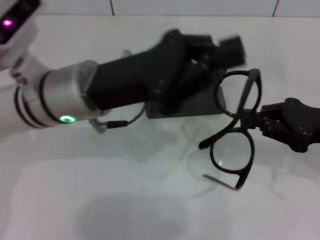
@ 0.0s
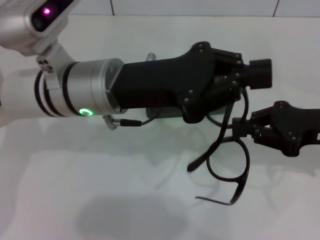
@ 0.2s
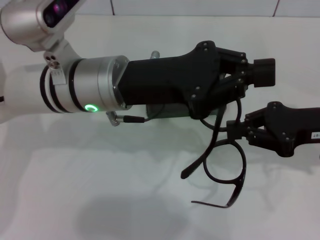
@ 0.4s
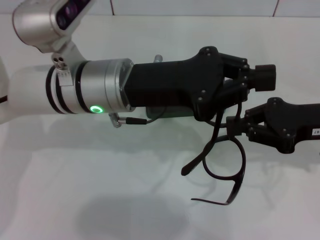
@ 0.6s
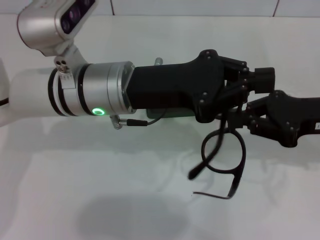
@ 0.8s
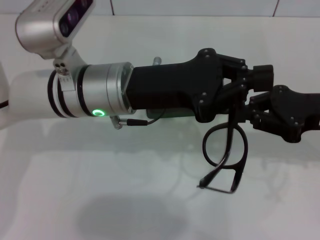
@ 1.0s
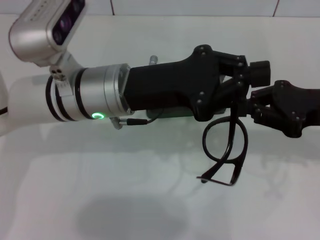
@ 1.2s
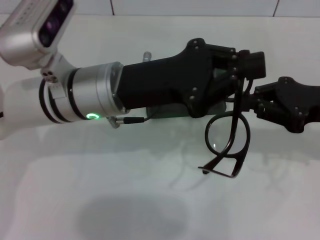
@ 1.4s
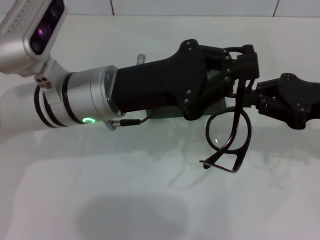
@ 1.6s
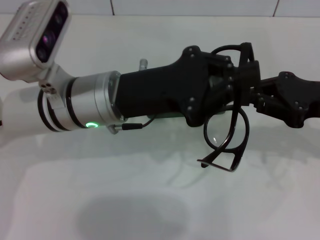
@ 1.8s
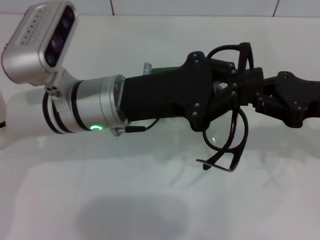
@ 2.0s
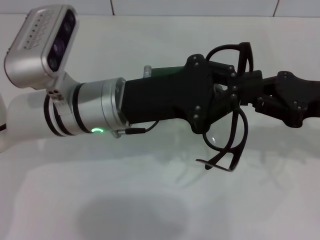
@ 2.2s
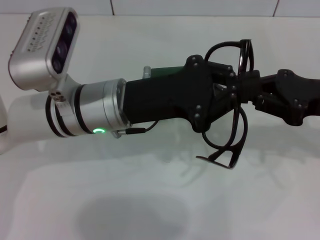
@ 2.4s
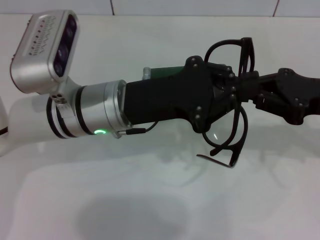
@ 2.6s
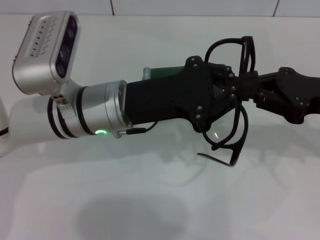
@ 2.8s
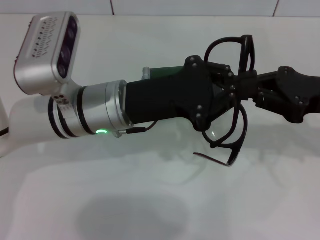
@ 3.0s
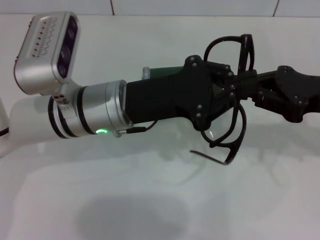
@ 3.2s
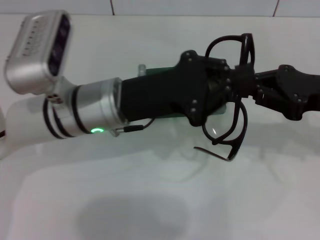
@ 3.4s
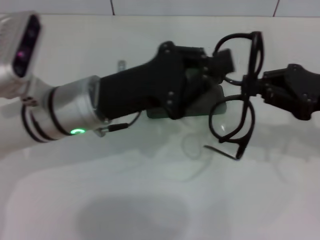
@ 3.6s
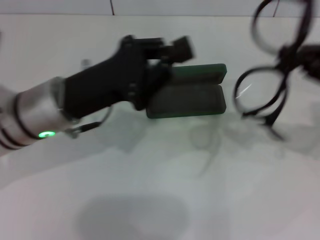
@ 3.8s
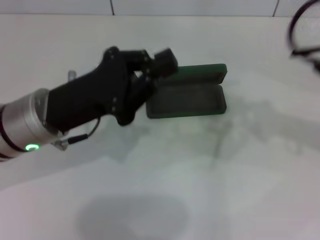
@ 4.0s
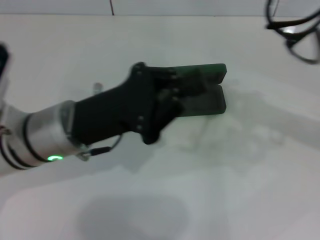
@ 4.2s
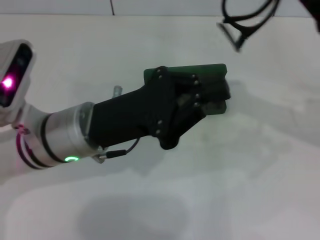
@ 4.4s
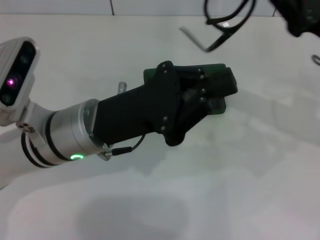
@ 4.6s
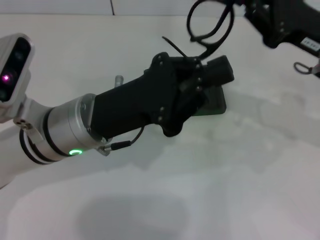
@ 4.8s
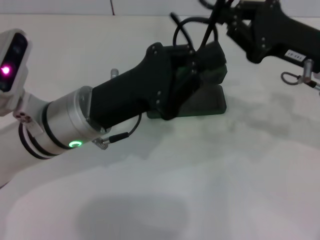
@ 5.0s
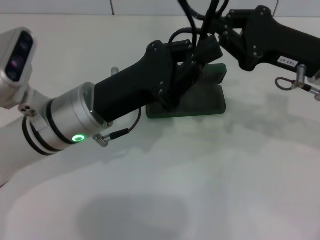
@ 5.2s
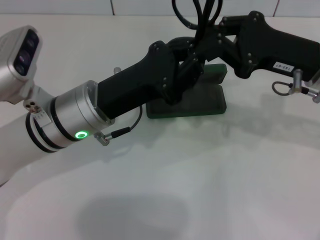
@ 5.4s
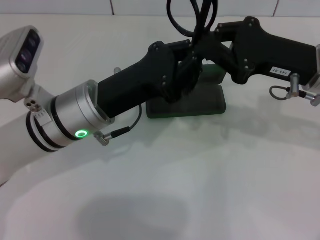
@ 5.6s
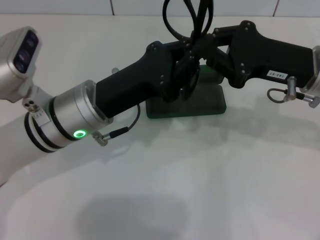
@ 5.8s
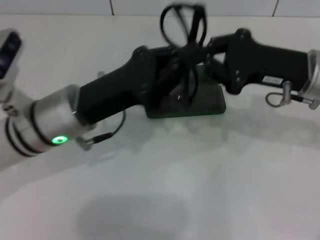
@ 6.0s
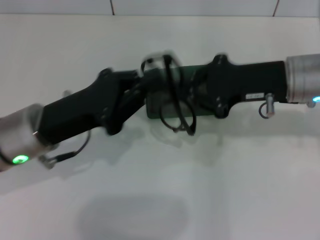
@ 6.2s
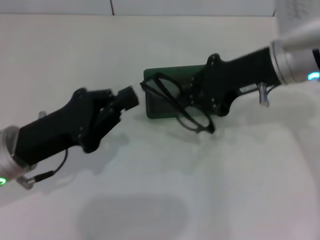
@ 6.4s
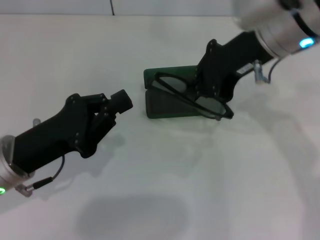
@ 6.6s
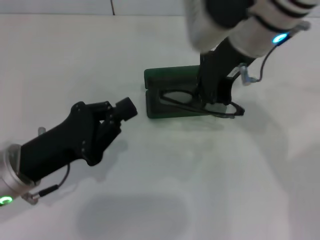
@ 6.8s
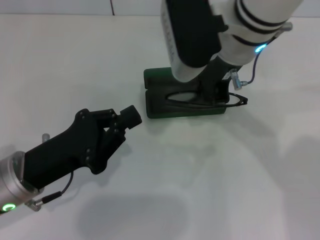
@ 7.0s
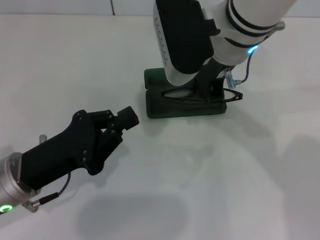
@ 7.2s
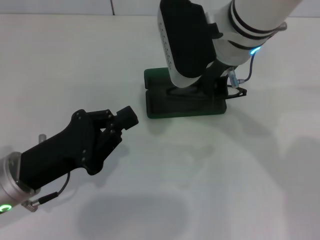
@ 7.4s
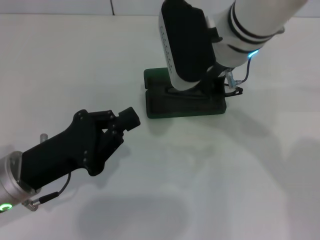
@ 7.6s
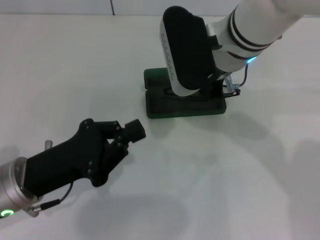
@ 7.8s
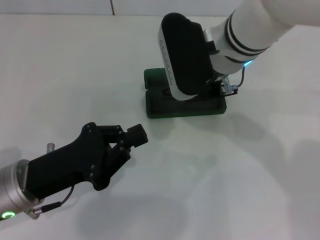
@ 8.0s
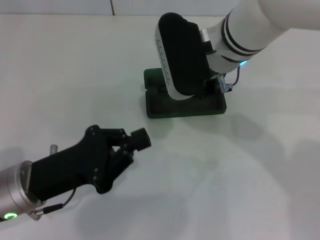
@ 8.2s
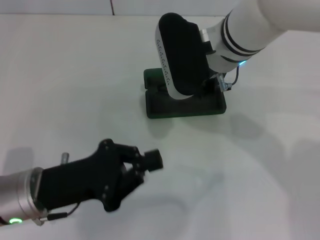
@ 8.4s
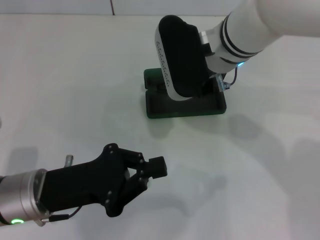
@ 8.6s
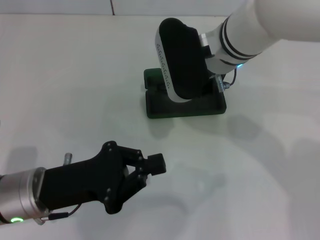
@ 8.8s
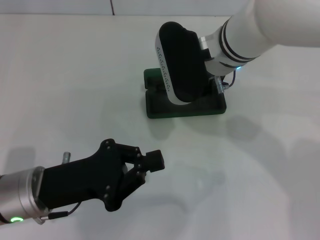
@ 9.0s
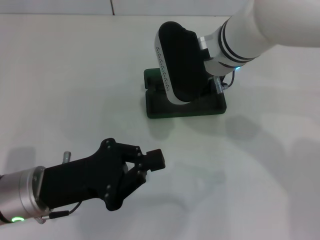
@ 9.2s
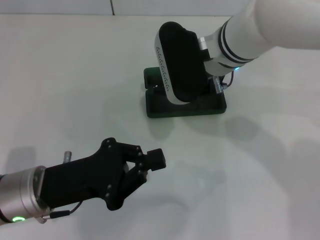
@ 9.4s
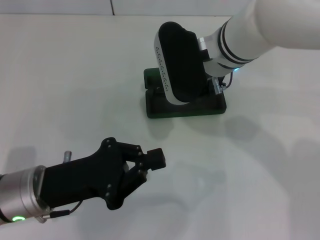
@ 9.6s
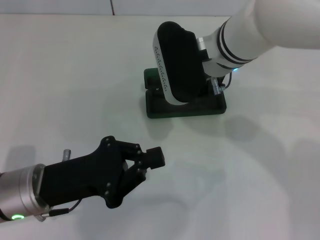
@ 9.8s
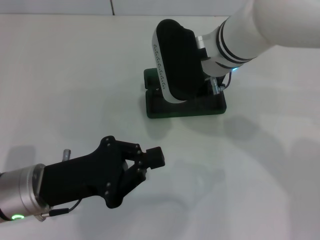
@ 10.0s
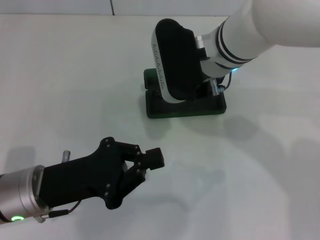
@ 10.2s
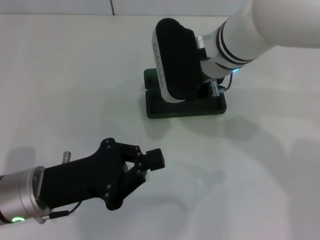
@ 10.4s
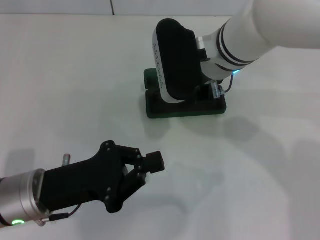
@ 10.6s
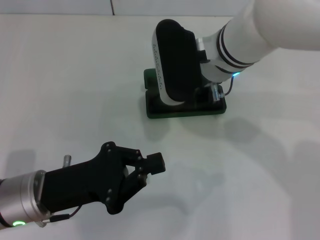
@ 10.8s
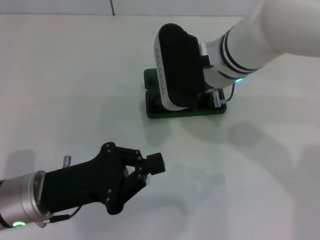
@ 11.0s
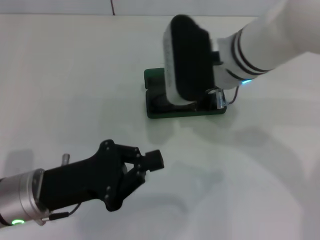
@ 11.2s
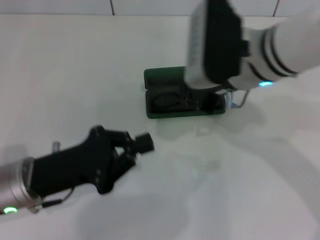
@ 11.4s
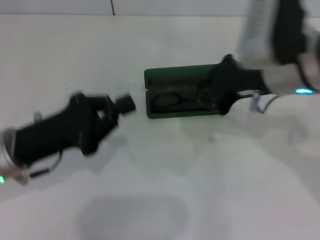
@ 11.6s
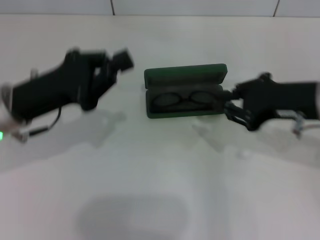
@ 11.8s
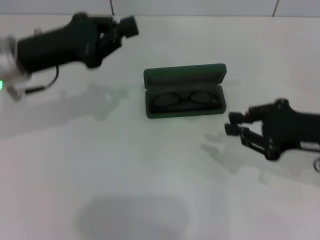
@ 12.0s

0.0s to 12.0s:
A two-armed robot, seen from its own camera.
Step, 0.0s to 5.6s: Fold the frame with your left hand.
Step, 5.8s to 10.4s: Put the glasses into the case with your right hand.
4.4s to 6.0s: The right gripper heads to the left, covering approximately 5 cm.
6.0s to 7.6s: The right gripper travels to the left and upward by about 15 cm. The left gripper moves backward and to the left, approximately 10 cm.
9.0s to 10.4s: Both grippers stay put.
10.4s to 12.0s: The left gripper is displaced forward and upward by approximately 15 cm. The right gripper is displaced to the right and backward by some 25 cm.

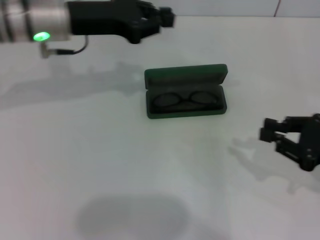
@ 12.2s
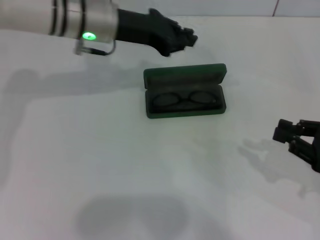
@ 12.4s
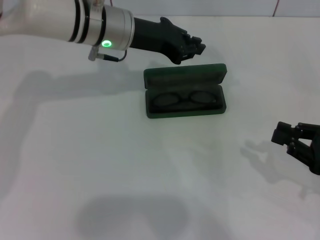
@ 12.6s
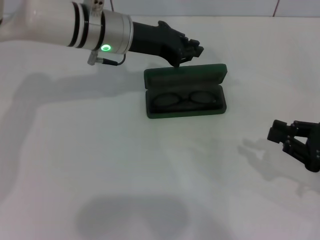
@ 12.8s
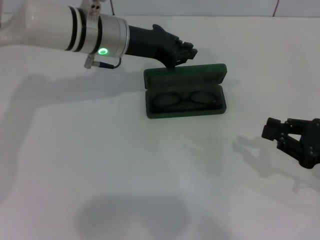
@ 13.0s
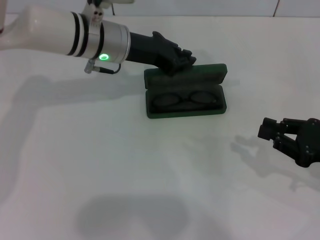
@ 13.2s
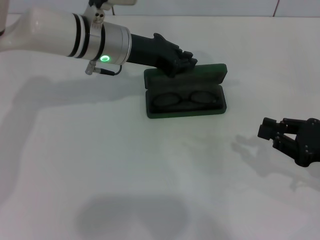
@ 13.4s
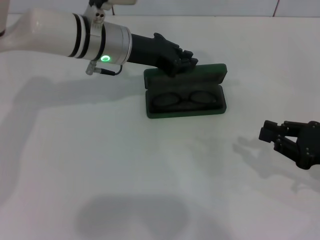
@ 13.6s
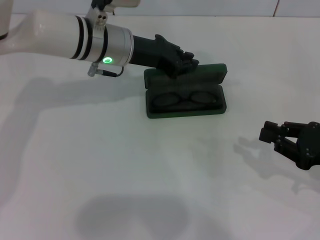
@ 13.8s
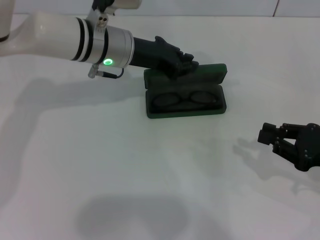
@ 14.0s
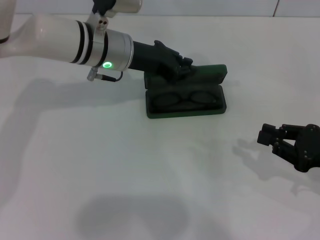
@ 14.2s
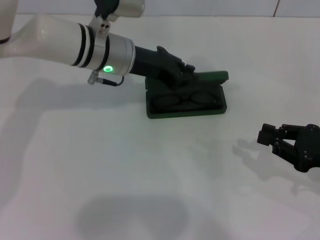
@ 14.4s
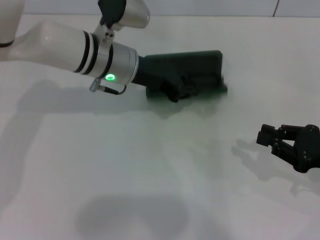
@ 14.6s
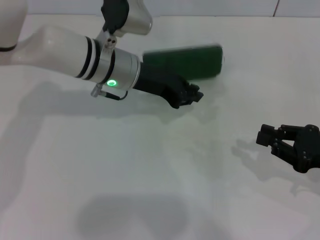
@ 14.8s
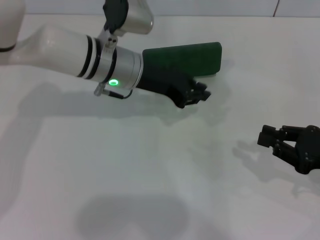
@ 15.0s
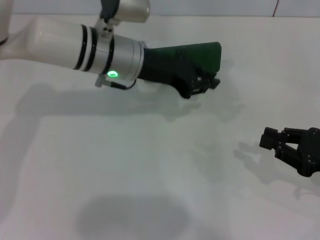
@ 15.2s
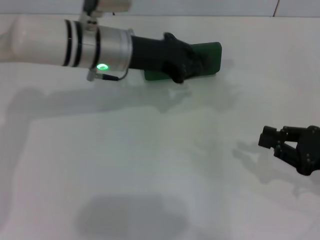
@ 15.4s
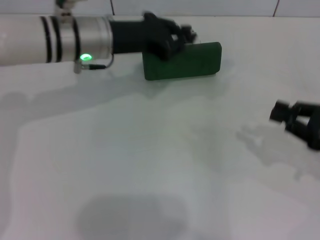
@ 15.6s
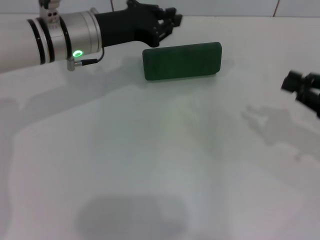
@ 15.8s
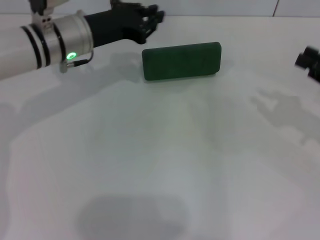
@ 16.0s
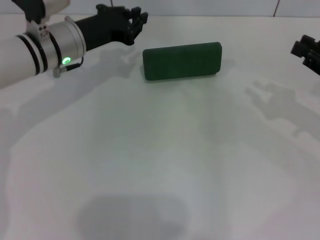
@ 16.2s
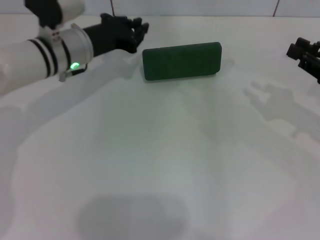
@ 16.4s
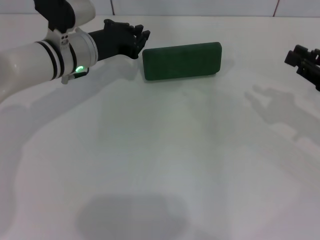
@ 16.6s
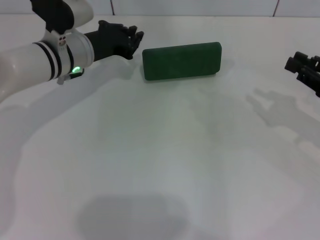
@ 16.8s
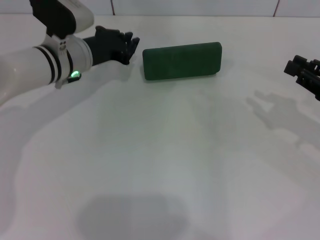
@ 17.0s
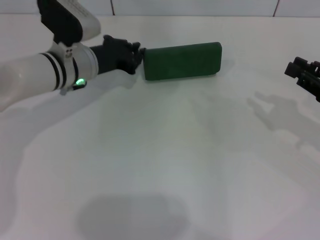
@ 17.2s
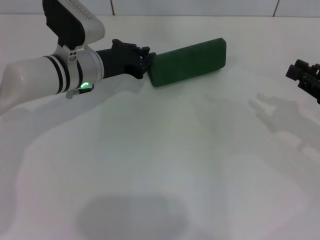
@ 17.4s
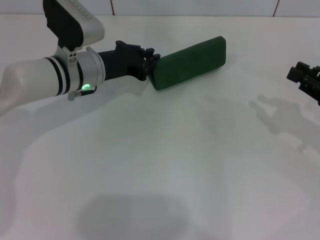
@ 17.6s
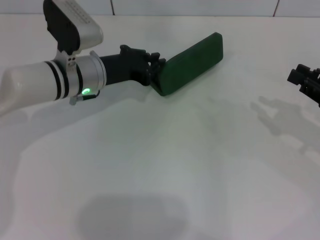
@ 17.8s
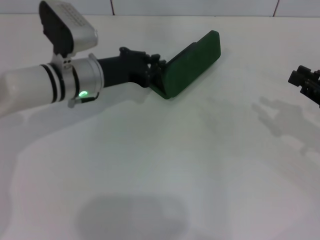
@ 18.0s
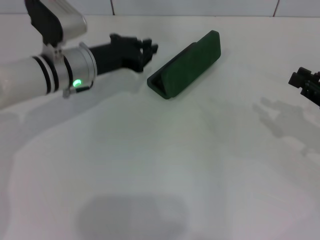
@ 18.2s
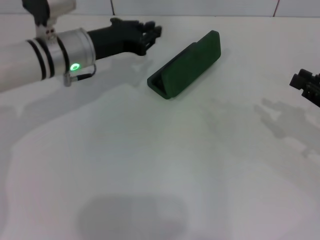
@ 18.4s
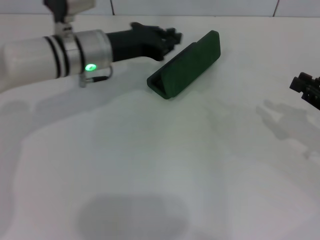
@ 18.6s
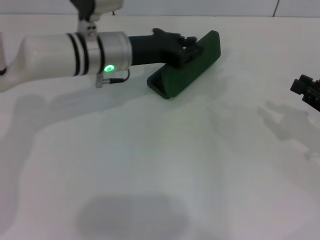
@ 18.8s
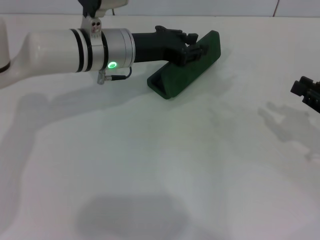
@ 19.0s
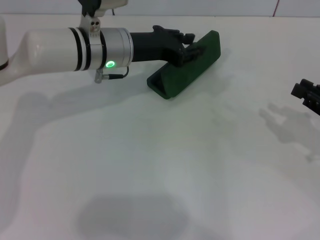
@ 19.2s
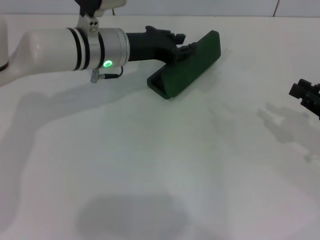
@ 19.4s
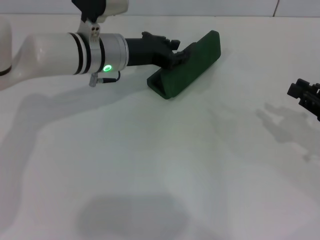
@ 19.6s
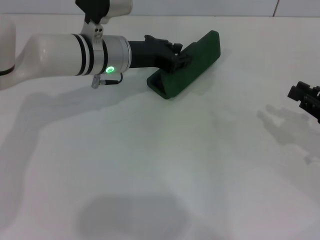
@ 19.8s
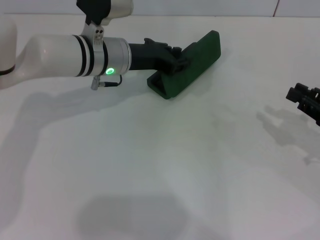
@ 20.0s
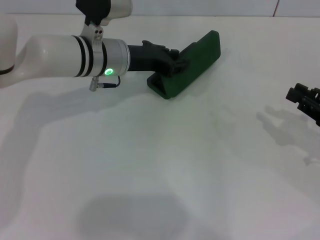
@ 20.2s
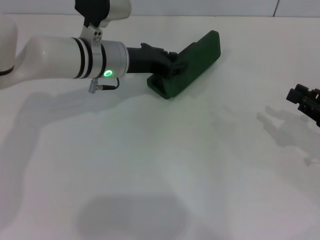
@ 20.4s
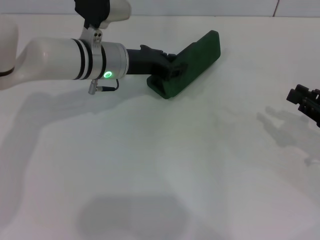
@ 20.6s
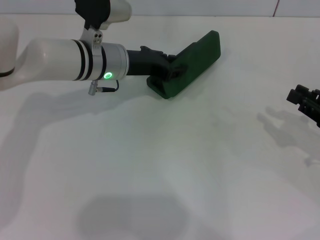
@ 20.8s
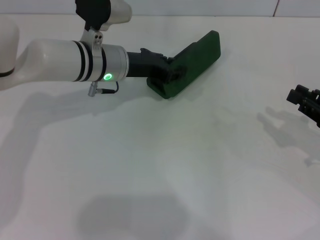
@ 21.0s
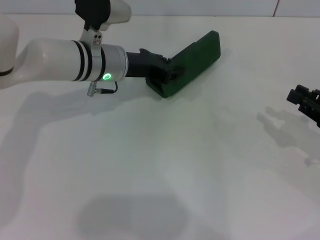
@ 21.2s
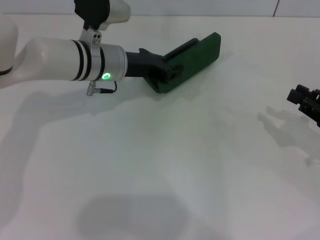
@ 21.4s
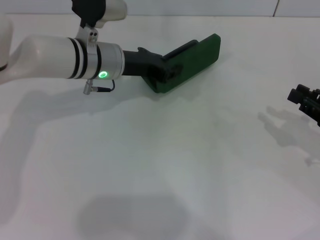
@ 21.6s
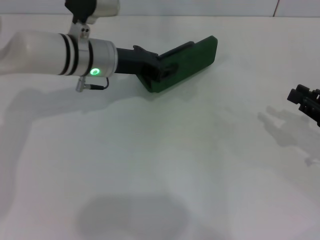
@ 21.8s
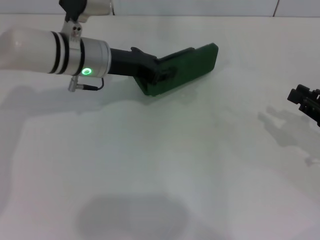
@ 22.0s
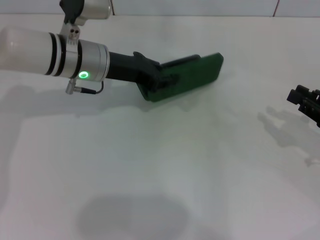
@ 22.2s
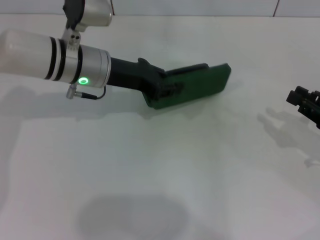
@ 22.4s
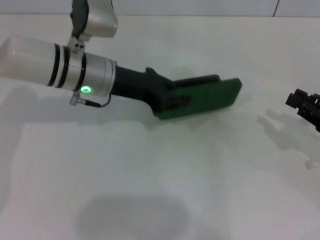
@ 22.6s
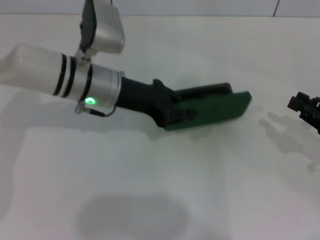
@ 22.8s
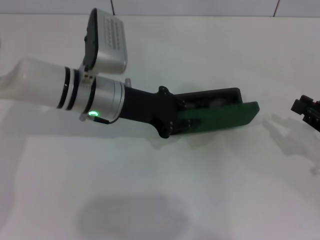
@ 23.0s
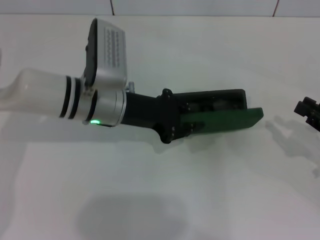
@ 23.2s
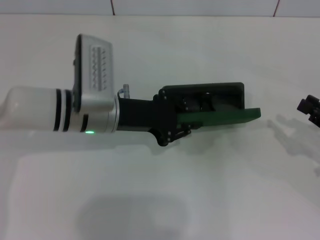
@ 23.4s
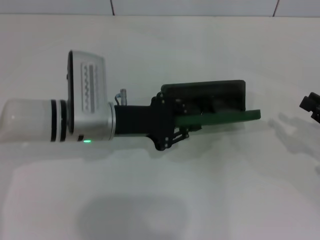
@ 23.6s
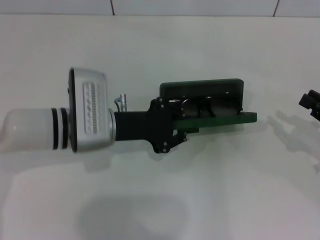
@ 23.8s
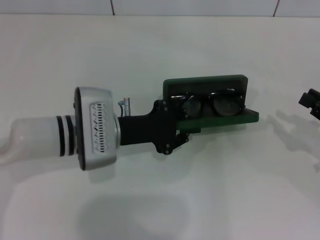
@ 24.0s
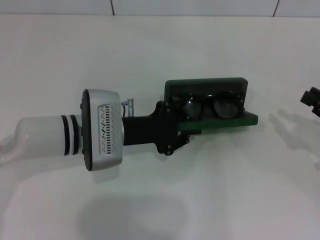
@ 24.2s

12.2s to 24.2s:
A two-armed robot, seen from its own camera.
12.2s to 13.8s: The left gripper heads to the right, covering about 5 cm.
13.8s to 15.2s: The grippers make only small movements.
15.2s to 16.6s: The right gripper goes some 5 cm forward, while the left gripper travels to the left and downward by some 10 cm.
16.6s to 18.2s: There are only small adjustments of the grippers.
18.2s to 19.8s: The left gripper heads to the right, covering about 5 cm.
19.8s to 21.2s: There are only small adjustments of the grippers.
22.6s to 24.2s: The left gripper moves backward and downward, some 10 cm.
